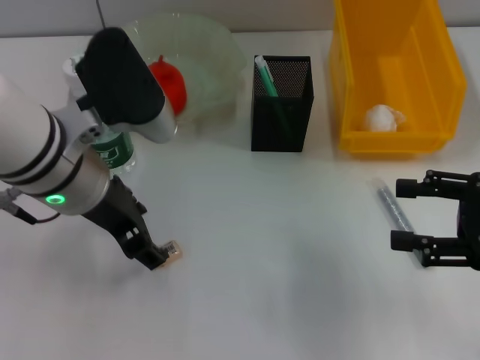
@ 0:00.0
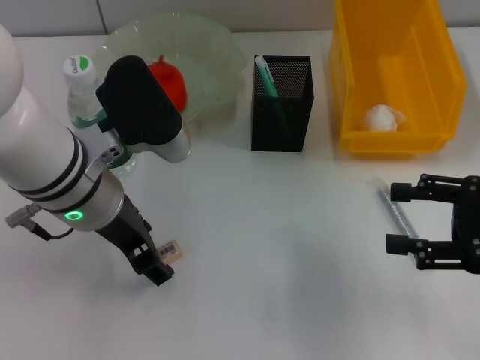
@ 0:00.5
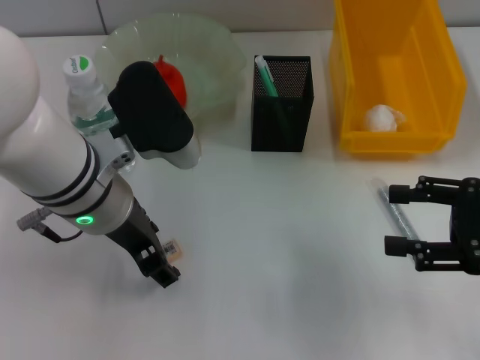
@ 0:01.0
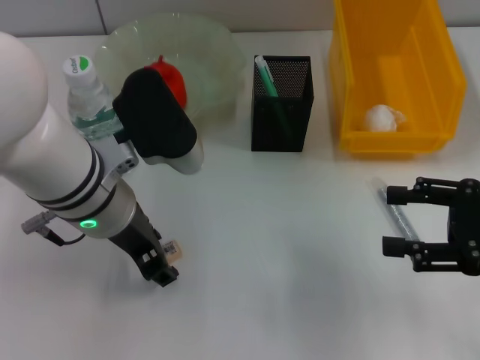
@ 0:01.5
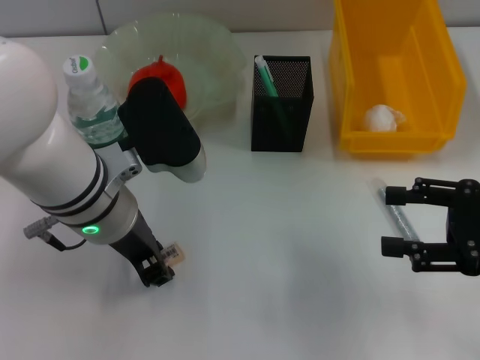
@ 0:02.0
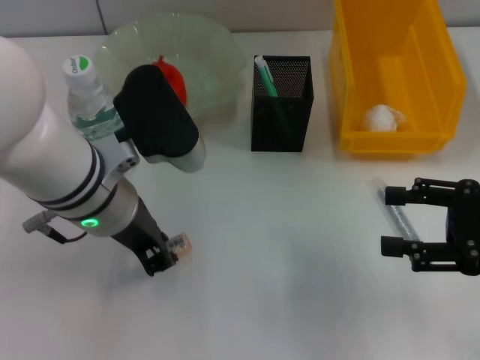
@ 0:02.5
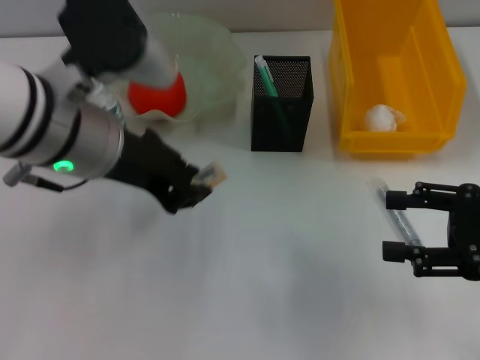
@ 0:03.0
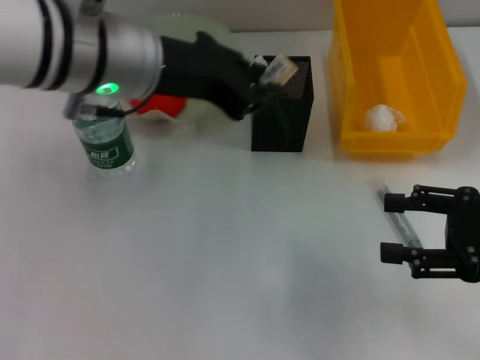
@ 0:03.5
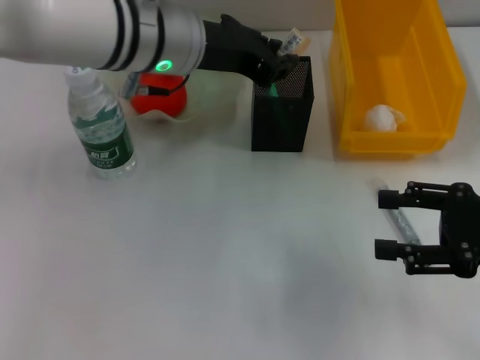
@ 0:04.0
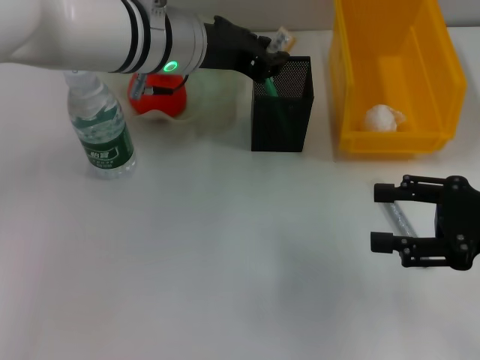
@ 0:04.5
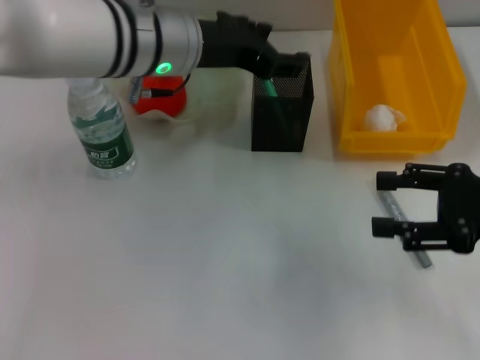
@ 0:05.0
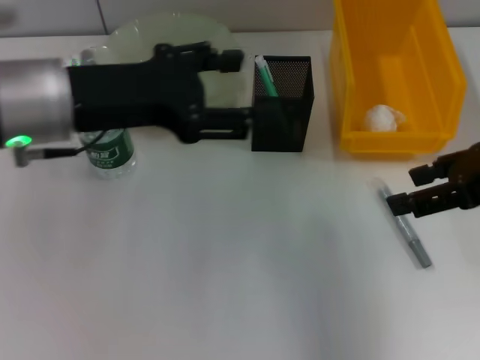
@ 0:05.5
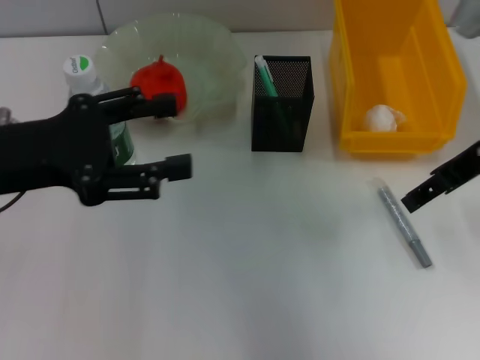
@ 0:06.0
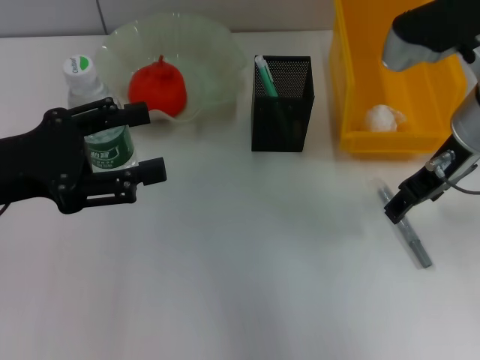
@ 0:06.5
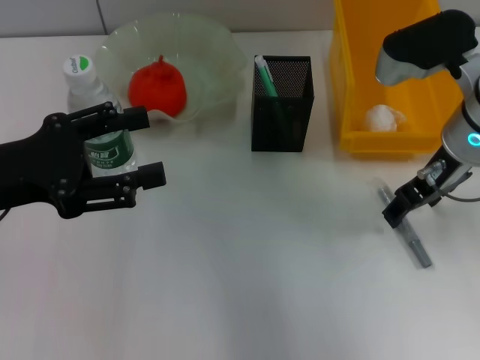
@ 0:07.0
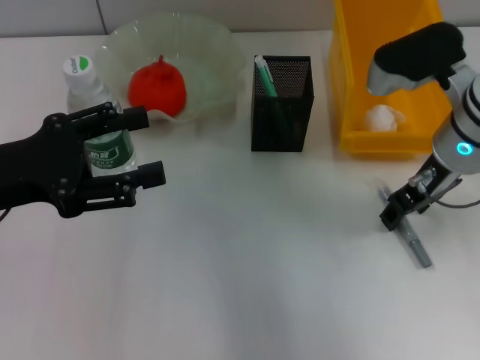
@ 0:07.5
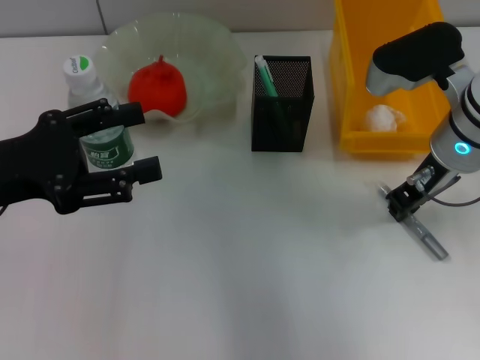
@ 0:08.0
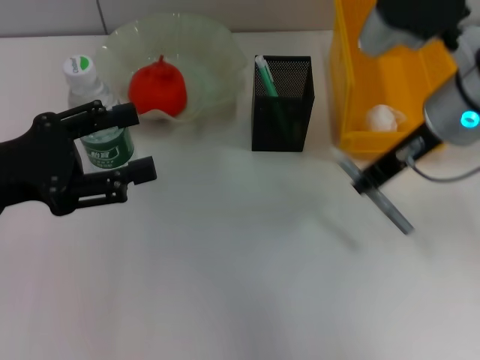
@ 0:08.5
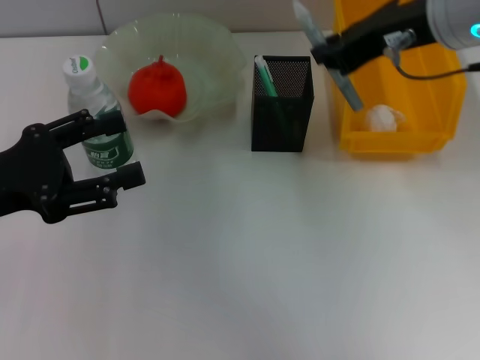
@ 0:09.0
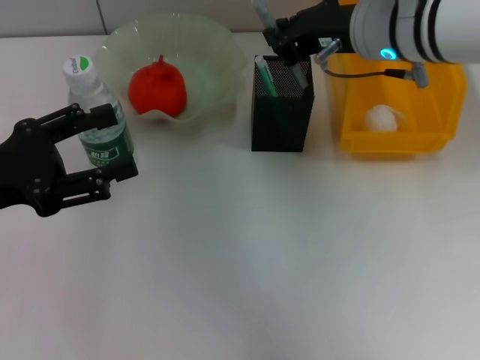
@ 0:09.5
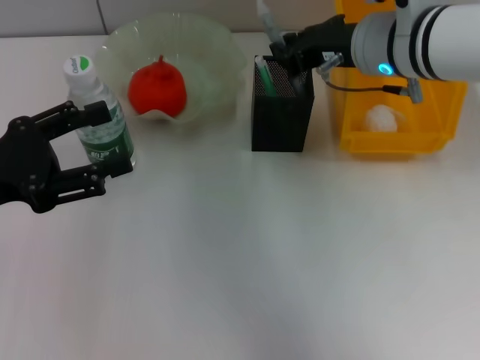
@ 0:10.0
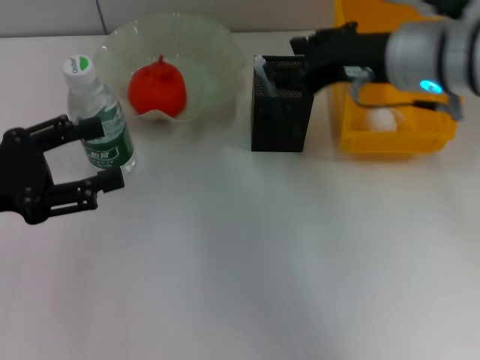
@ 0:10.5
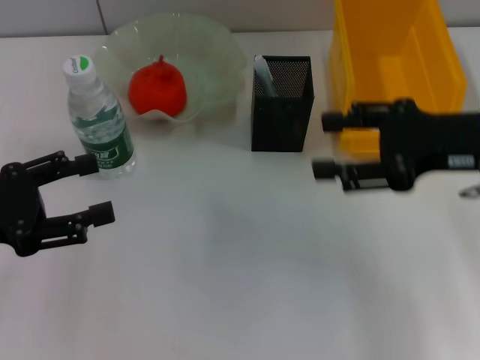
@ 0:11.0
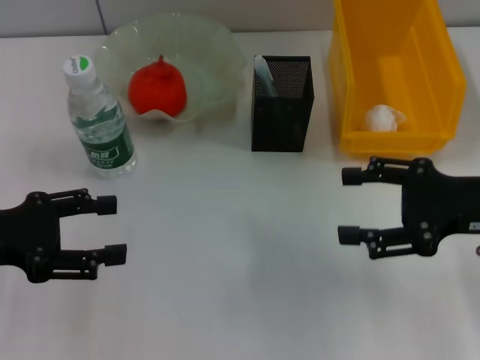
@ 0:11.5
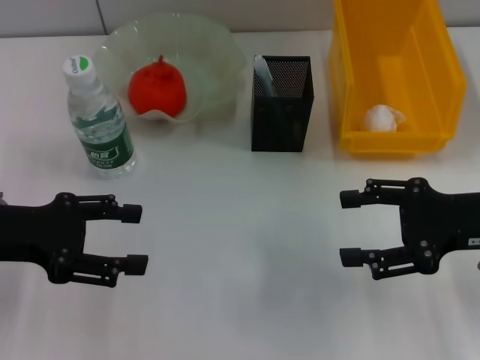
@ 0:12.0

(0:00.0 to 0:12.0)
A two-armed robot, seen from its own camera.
Step, 0:00.0 - 0:02.0: Grab the eraser with the left hand.
Step, 0:02.5 - 0:04.5: Place the eraser into the pen holder with the left hand.
Step, 0:05.0 - 0:08.0: Grab the gray glue with the right hand.
Step, 0:08.5 - 0:10.0: Place the gray glue into the pen holder with the right hand.
0:00.0 - 0:02.0: The left gripper closes its fingers.
0:02.0 - 0:04.0: The left gripper goes some 10 cm forward and upward.
0:04.0 - 0:06.0: The right gripper heads upward, forward and to the left, covering some 15 cm. Meanwhile the left gripper shifts approximately 20 cm to the left and backward, and opens up.
0:06.0 - 0:08.0: The right gripper shifts about 10 cm downward, and closes its fingers.
0:08.0 - 0:10.0: The right gripper goes about 5 cm to the left, and goes upward and returns, approximately 10 cm each way.
0:10.0 - 0:12.0: The right gripper is displaced to the right, backward and downward by roughly 20 cm, and opens its fingers.
